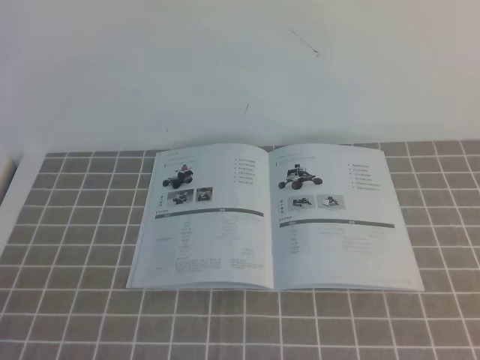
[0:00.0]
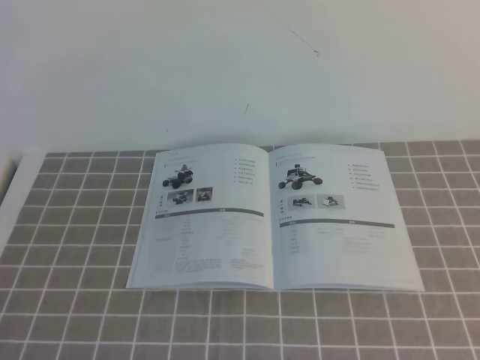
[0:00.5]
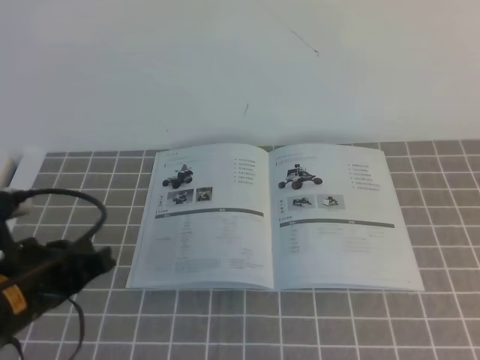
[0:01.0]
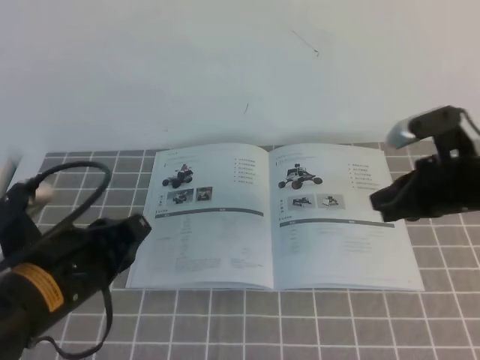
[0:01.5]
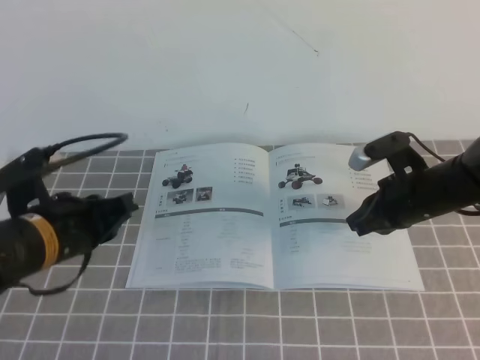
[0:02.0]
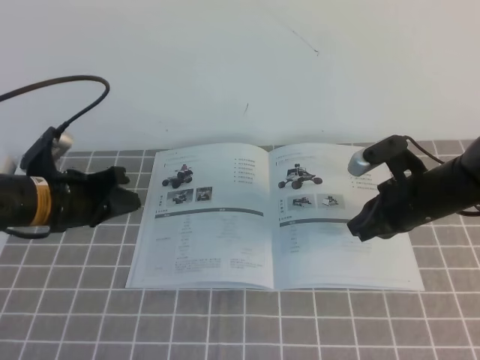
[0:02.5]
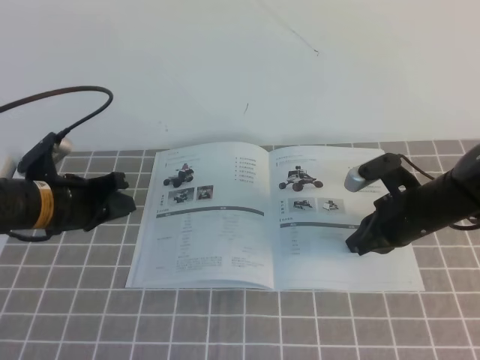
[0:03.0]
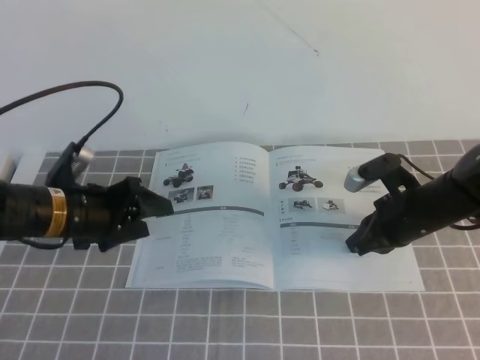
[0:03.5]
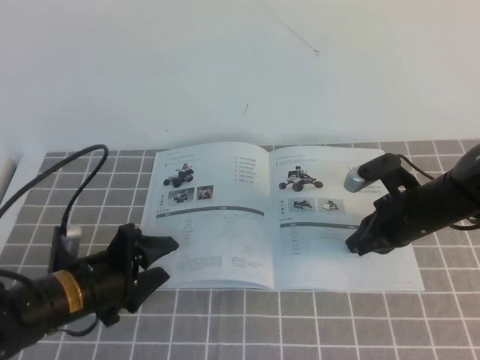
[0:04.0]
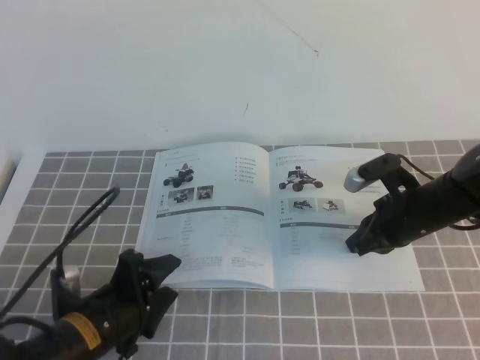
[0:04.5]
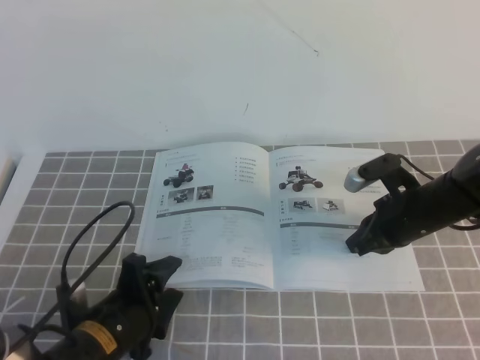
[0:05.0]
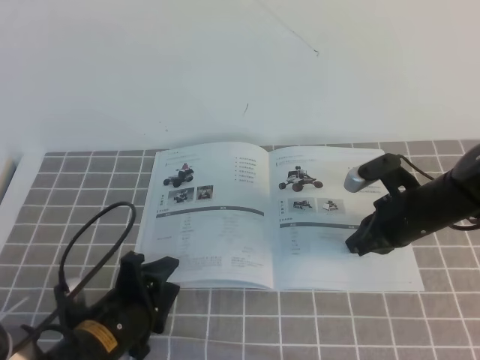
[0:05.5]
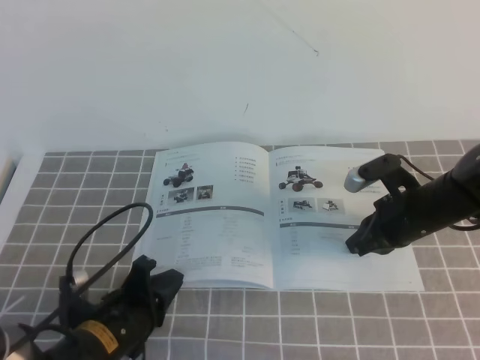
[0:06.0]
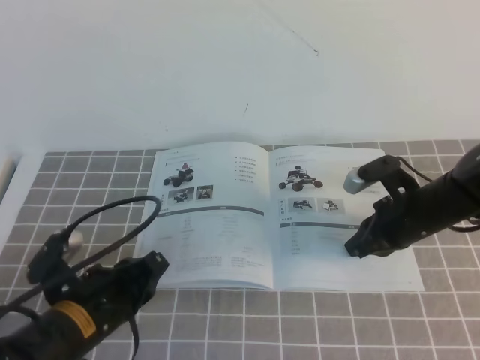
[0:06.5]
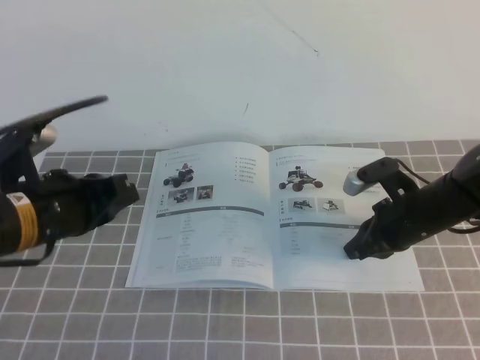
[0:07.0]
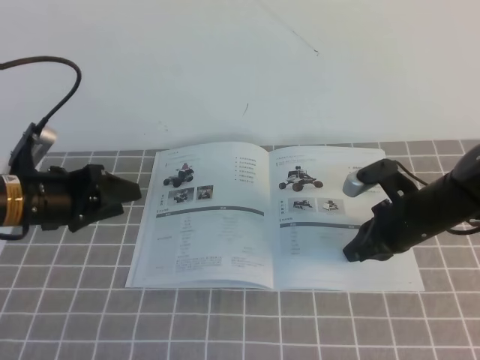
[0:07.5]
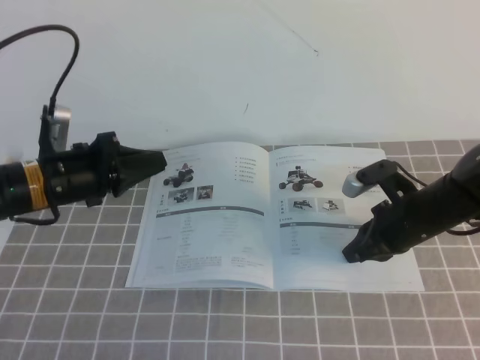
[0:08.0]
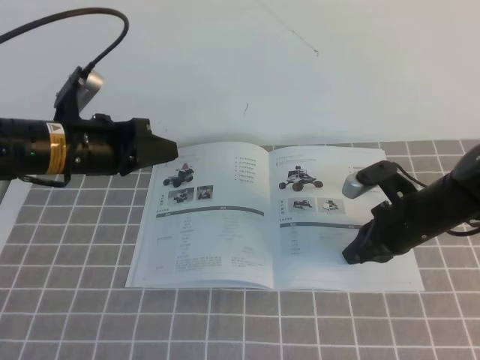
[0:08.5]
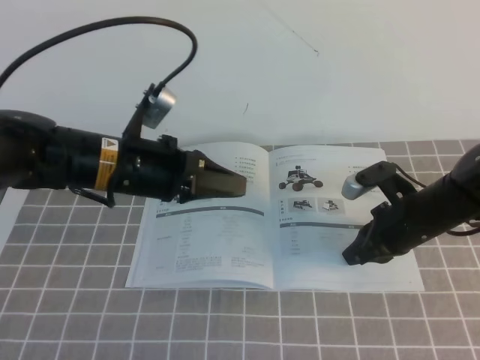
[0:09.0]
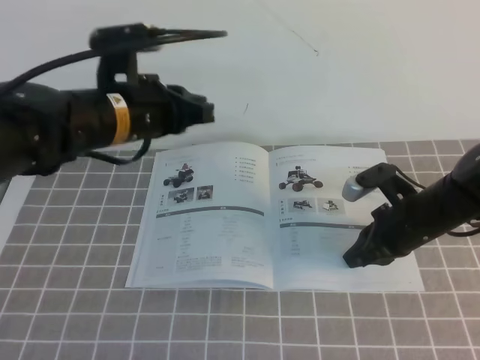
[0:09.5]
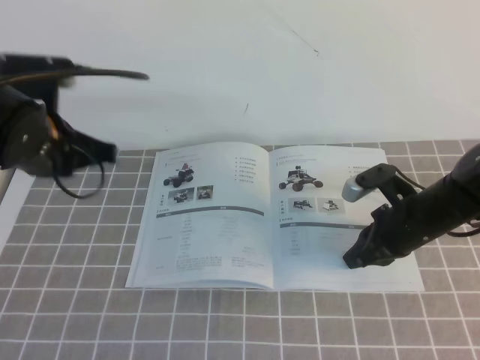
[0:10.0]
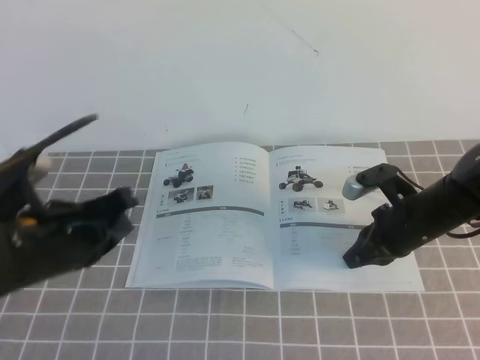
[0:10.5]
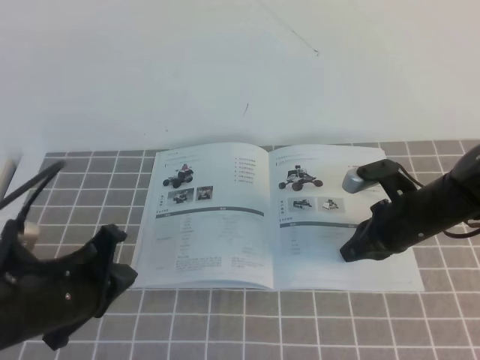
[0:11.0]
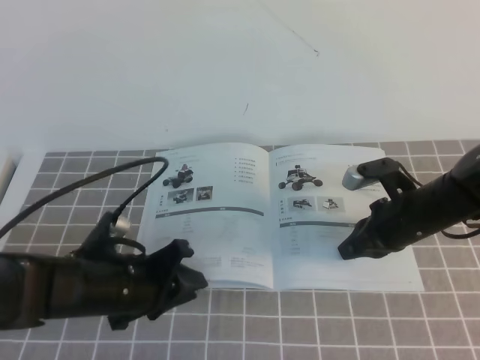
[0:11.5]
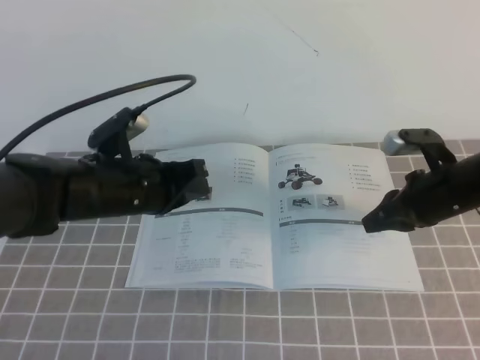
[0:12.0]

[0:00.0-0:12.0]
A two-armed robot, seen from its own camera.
Task of the whole recording: on the grey tablecloth, hold the book with one hand and close it with the other.
0:00.0 to 0:02.0: The two grippers go approximately 30 cm forward.
0:02.0 to 0:04.0: The left gripper moves downward, roughly 10 cm, and opens.
0:04.0 to 0:06.0: The left gripper moves roughly 5 cm, and closes.
0:06.0 to 0:08.0: The left gripper shifts roughly 20 cm forward, upward and to the left, and opens and closes again.
0:08.0 to 0:10.0: The left gripper moves upward, about 10 cm, and reaches some 10 cm to the right, then returns.
0:10.0 to 0:12.0: The left gripper moves downward and to the right, about 10 cm. Meanwhile the right gripper opens its fingers.

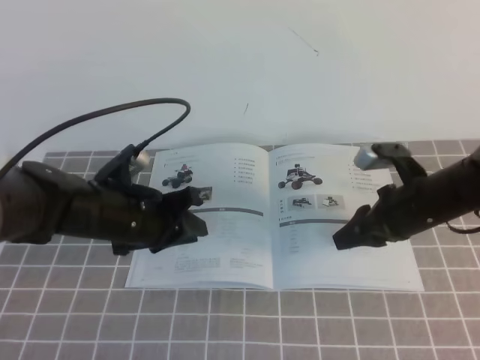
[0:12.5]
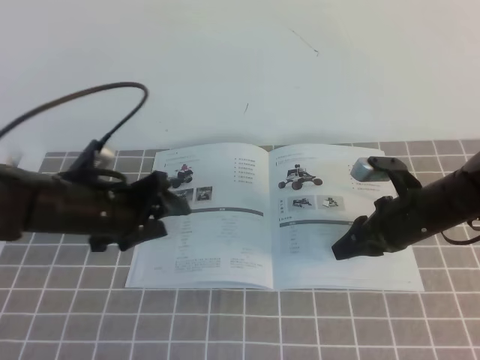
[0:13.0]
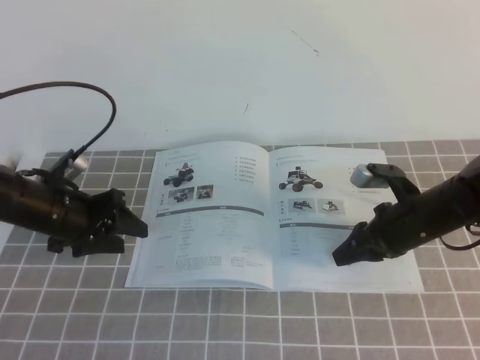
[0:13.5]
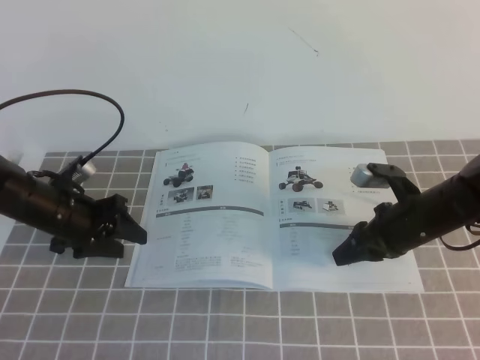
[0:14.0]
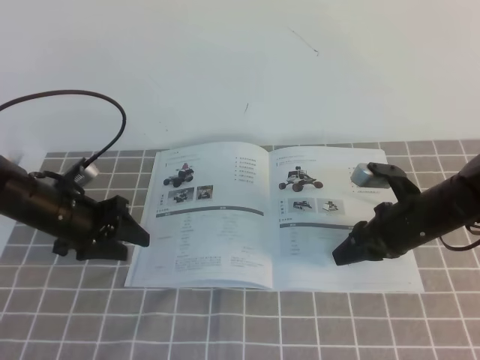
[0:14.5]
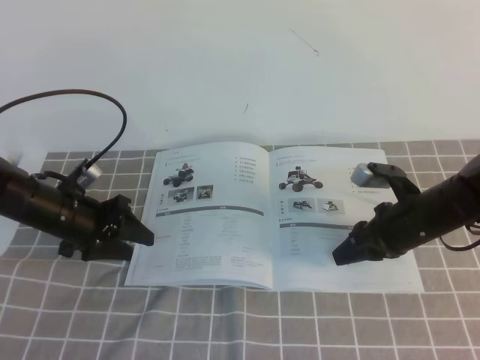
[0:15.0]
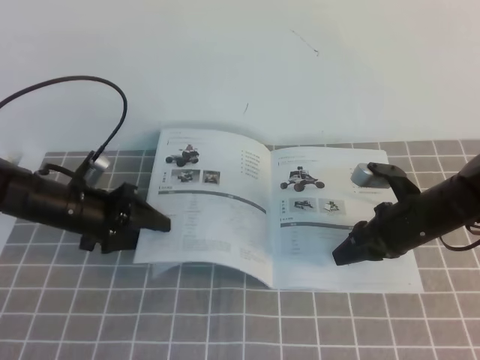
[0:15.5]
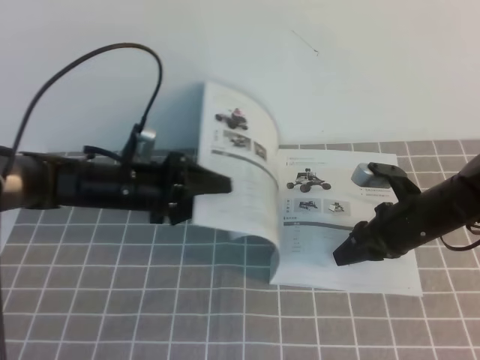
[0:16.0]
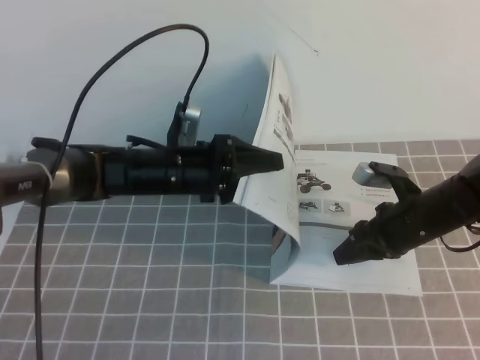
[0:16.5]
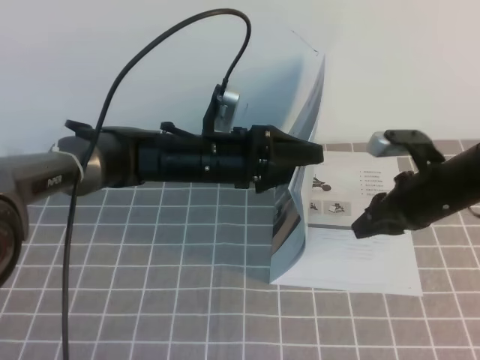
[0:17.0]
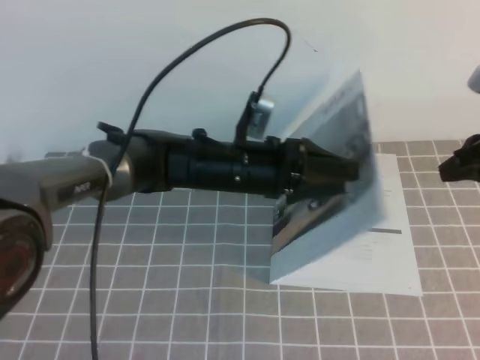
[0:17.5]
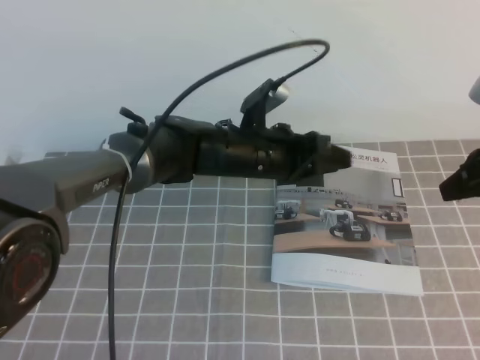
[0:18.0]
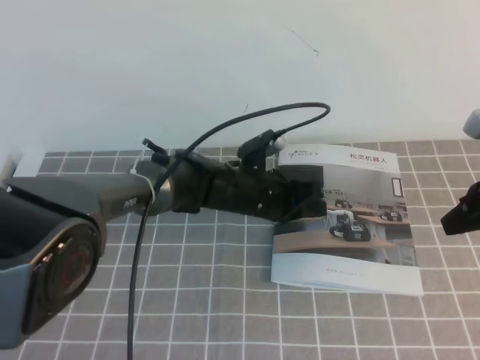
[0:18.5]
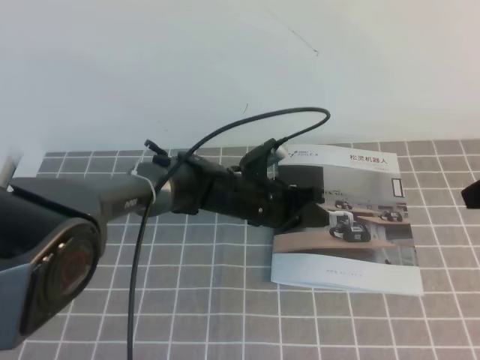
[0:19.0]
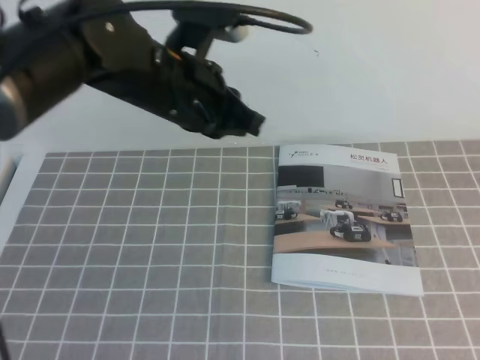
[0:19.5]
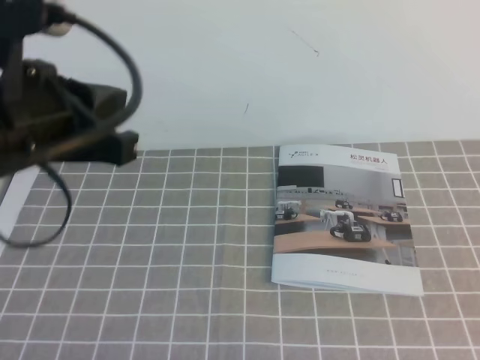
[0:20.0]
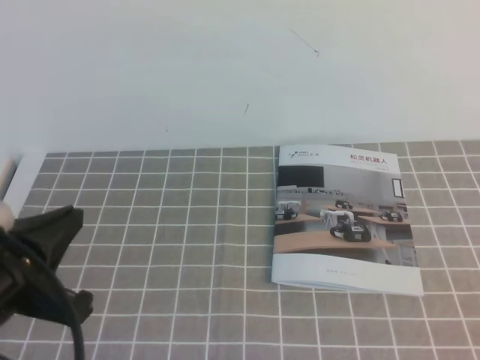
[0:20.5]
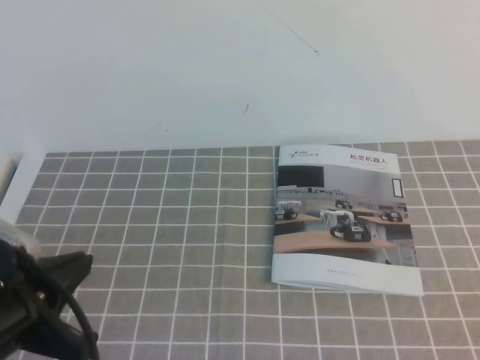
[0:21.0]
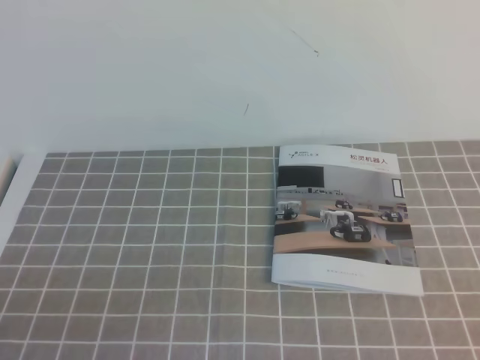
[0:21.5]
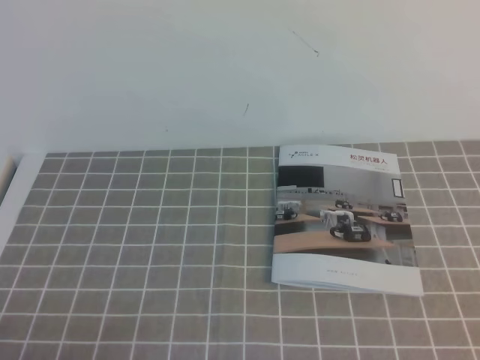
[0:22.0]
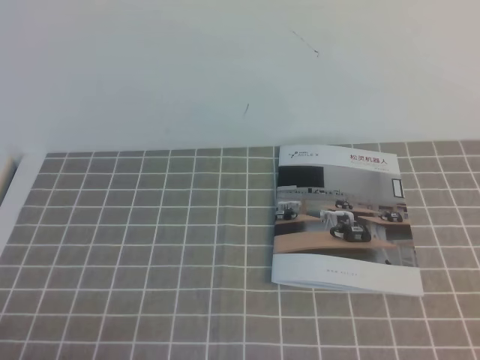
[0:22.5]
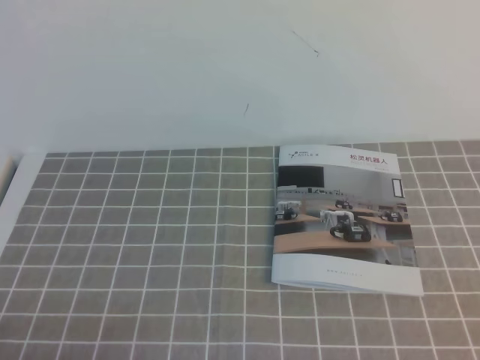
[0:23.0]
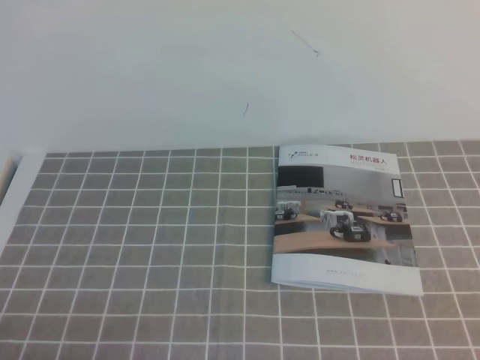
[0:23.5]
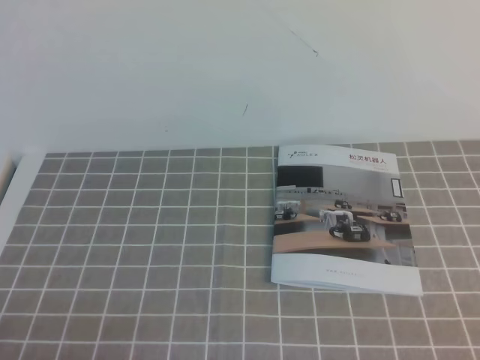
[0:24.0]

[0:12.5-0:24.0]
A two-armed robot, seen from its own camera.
Task of the whole recording: on the grey tablecloth, hold the book with one hand and close it with the other.
Step, 0:12.5 to 0:24.0: Close the open book.
0:12.5 to 0:14.5: The left gripper travels to the left, downward and forward by about 15 cm, and opens its fingers.
0:14.5 to 0:16.5: The left gripper heads to the right, covering roughly 15 cm.
0:16.5 to 0:18.5: The right gripper goes about 15 cm upward, to the right and backward. The left gripper heads to the right, covering roughly 10 cm, and closes its fingers.
0:18.5 to 0:20.0: The right gripper goes roughly 25 cm backward, and closes its fingers; the left gripper travels upward, backward and to the left by about 35 cm.
0:20.0 to 0:22.0: The left gripper goes about 30 cm downward, backward and to the left. Meanwhile the right gripper is displaced downward by some 5 cm.

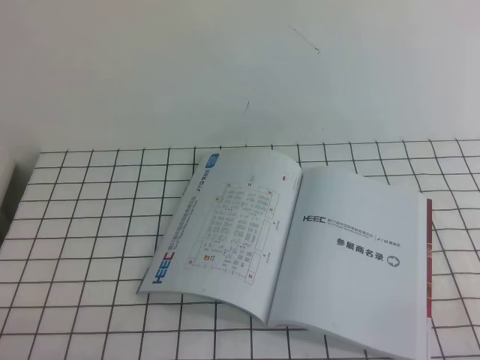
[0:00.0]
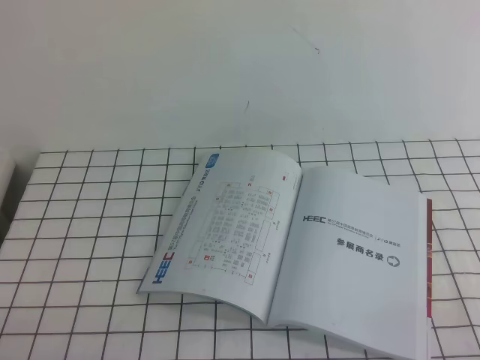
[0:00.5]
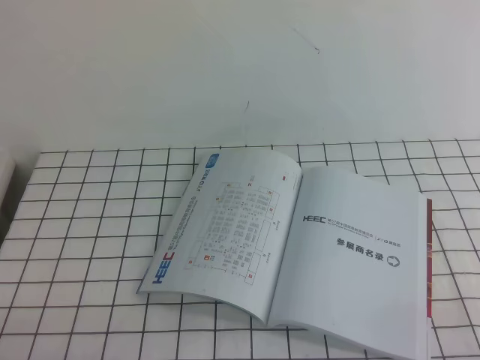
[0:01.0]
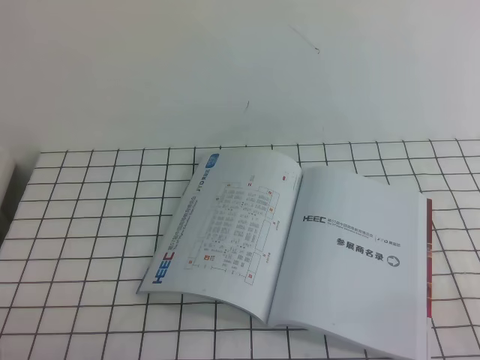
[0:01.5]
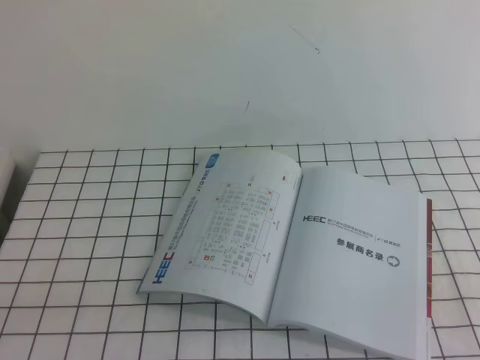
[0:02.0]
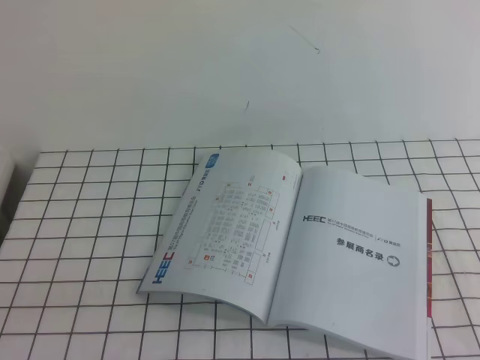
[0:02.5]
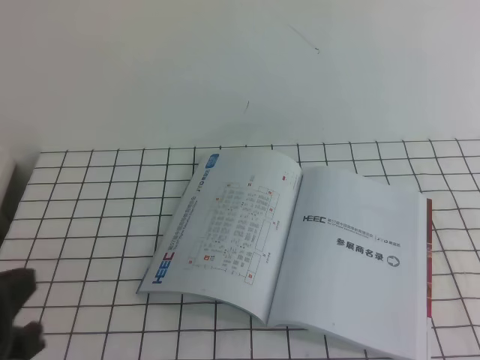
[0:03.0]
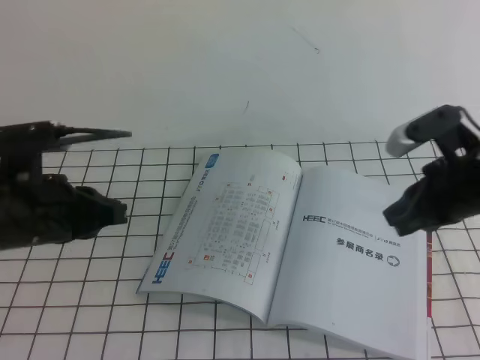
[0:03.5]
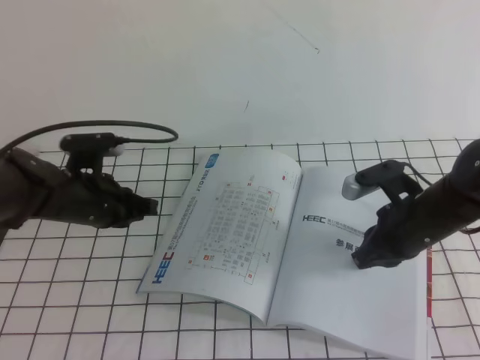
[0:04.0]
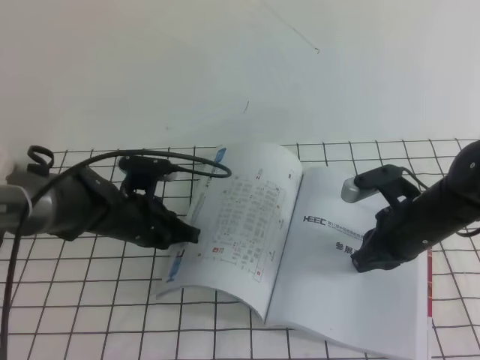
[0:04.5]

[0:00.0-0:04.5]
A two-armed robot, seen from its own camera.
Task of the whole recording: on the white tablecloth, hold the book with one hand and close it with the other.
0:02.0 to 0:04.5: The left gripper travels forward by about 35 cm, while the right gripper travels forward and to the left by some 35 cm.
